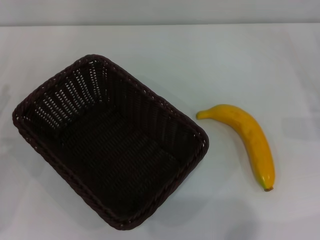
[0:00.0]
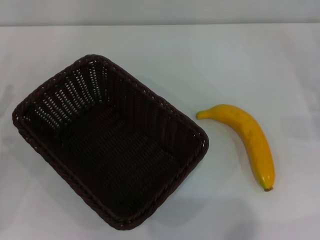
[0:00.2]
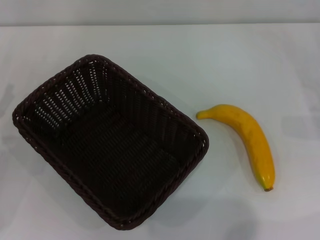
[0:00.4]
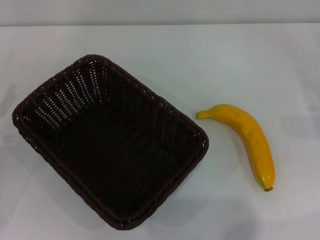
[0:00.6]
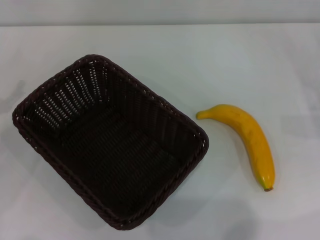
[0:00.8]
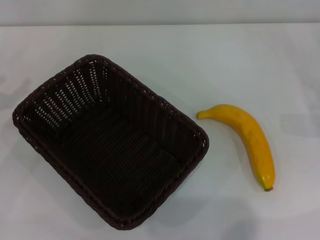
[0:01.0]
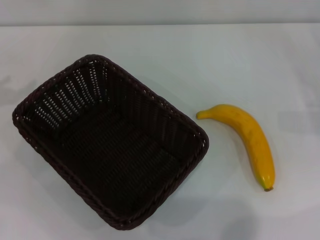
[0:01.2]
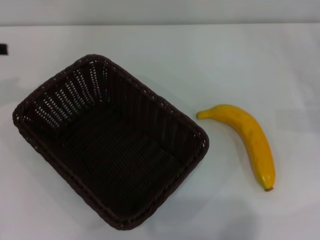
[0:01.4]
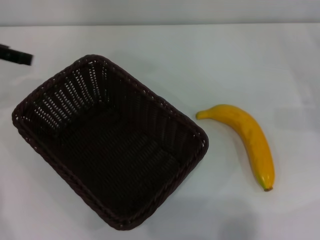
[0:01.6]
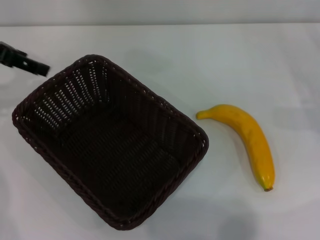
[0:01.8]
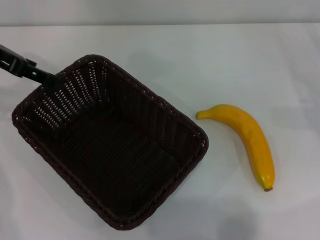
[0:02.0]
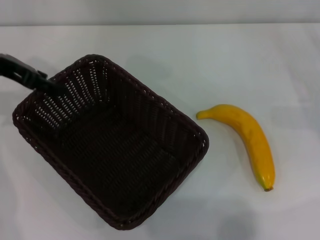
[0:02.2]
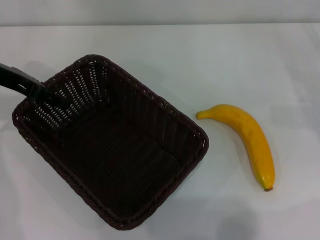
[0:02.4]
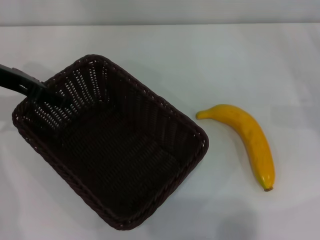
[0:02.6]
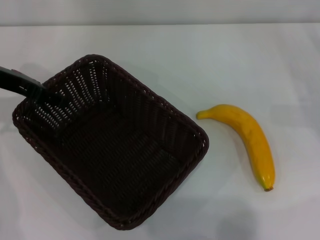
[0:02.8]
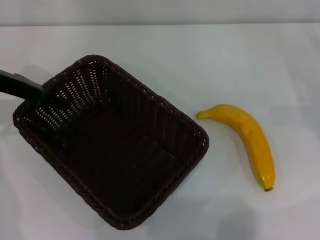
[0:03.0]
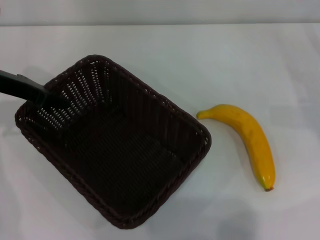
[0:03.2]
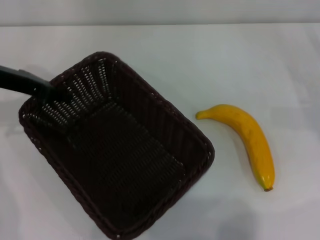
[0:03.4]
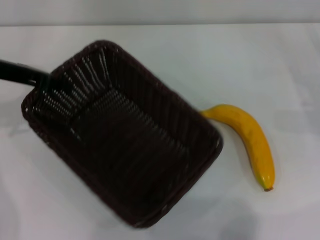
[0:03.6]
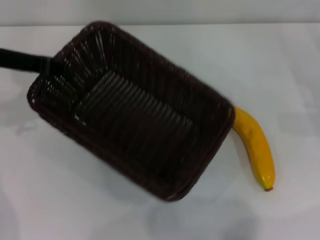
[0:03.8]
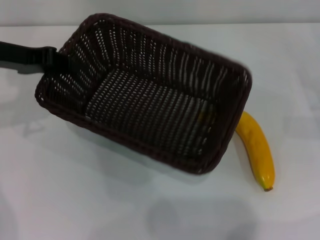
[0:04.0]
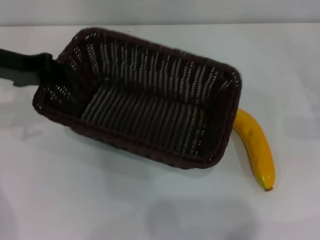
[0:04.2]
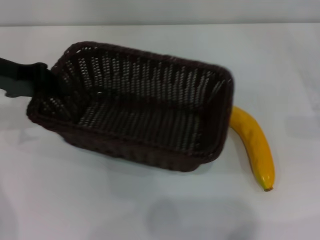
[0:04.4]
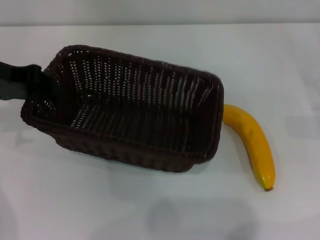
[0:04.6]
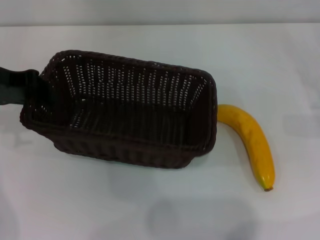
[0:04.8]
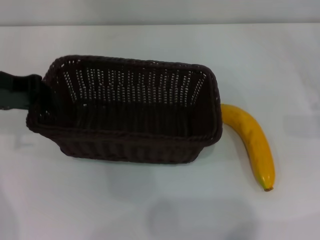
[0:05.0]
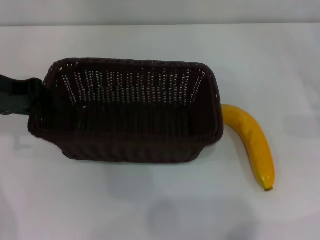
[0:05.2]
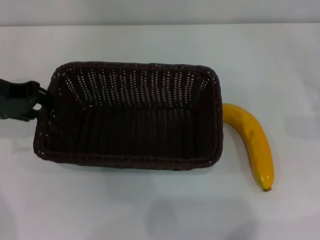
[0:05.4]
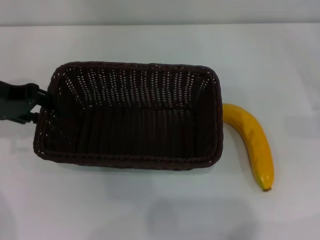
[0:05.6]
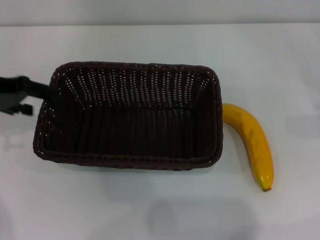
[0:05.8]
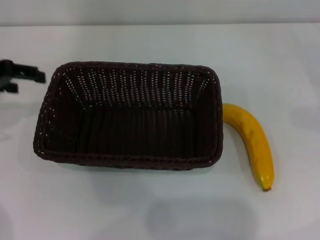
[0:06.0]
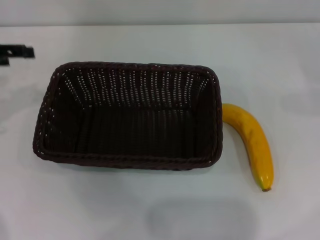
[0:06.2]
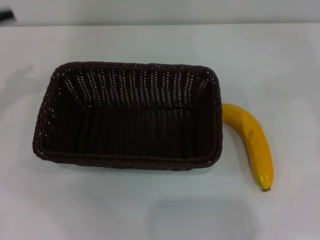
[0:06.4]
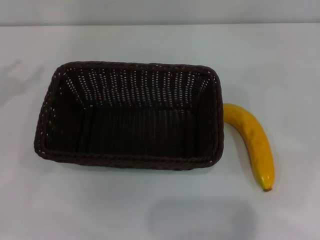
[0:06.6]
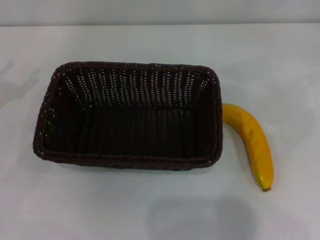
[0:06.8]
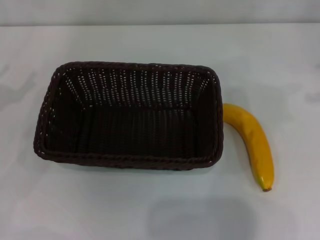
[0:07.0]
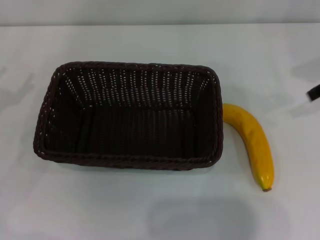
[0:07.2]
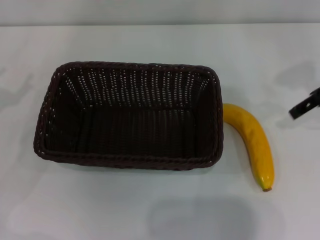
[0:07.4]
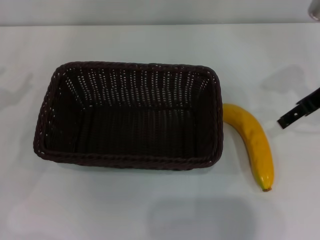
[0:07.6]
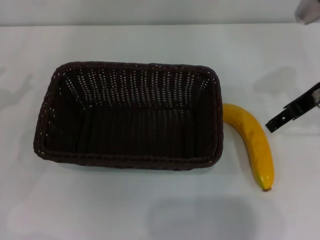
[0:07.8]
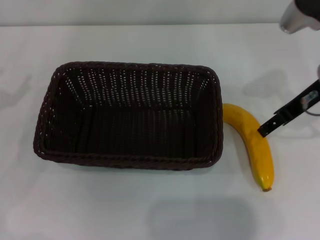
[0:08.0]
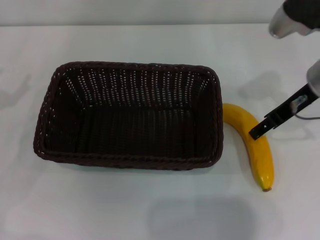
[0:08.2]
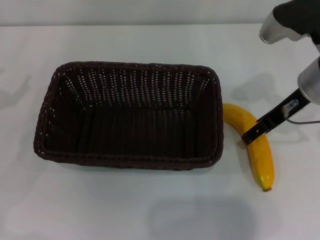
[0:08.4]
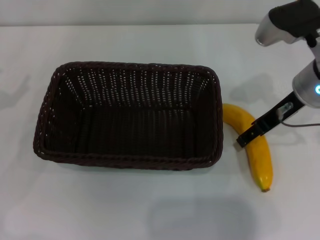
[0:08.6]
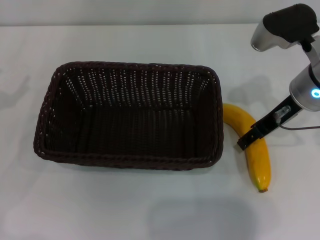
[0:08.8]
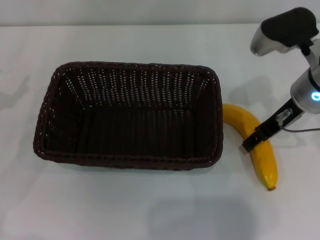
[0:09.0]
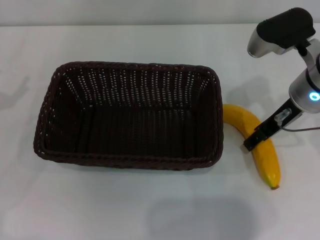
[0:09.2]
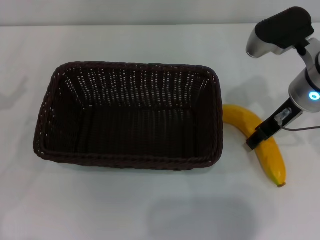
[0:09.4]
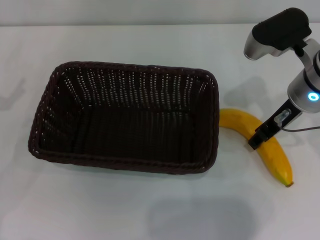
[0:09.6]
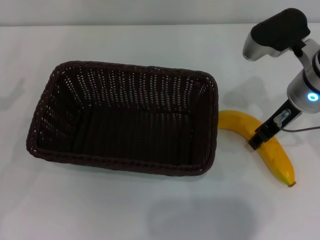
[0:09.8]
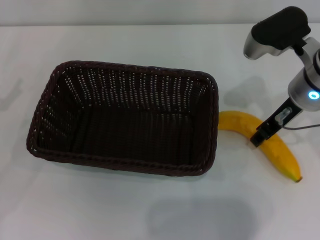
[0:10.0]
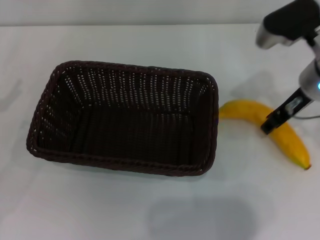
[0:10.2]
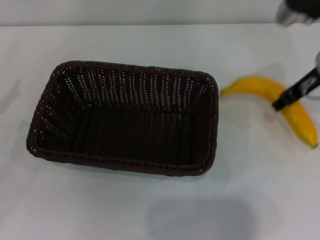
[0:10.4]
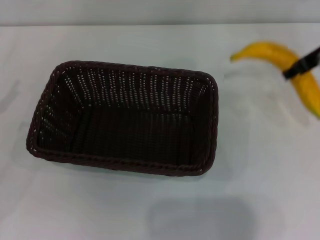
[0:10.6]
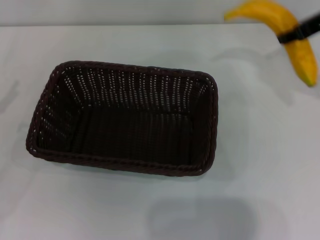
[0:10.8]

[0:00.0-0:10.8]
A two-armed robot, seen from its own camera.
Step, 0:00.0 to 0:03.6: Pick up the dark basket with the left gripper.
Step, 0:03.8 to 0:06.0: Place the dark basket in the center of view with the left gripper.
Step, 0:06.2 to 0:10.4: Pick up the banana with the right gripper.
0:00.0 to 0:01.6: The left gripper goes about 20 cm upward and forward.
0:01.6 to 0:03.0: The left gripper goes approximately 10 cm downward and to the right.
0:03.0 to 0:04.6: The left gripper changes place by roughly 5 cm, and closes.
0:04.6 to 0:06.2: The right gripper goes approximately 10 cm upward and to the right. Meanwhile the left gripper heads to the left, covering about 5 cm, and opens.
0:06.2 to 0:07.8: The left gripper travels downward and backward by approximately 10 cm. Meanwhile the right gripper moves to the left, roughly 20 cm.
0:07.8 to 0:09.2: The right gripper travels to the left by roughly 5 cm.
0:09.2 to 0:10.8: The right gripper shifts roughly 10 cm upward and to the right, and closes its fingers.

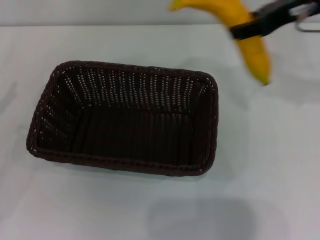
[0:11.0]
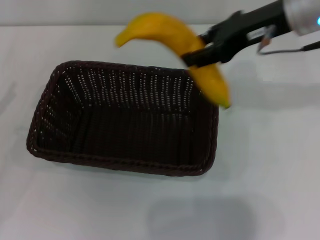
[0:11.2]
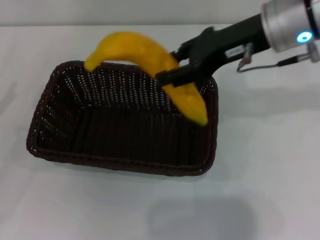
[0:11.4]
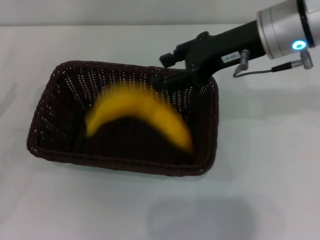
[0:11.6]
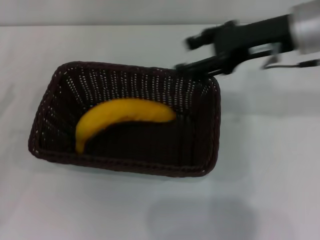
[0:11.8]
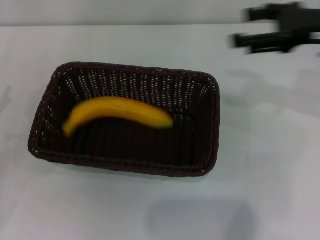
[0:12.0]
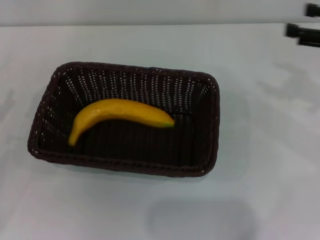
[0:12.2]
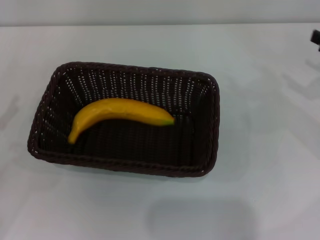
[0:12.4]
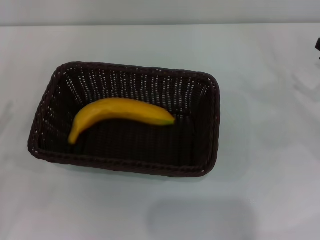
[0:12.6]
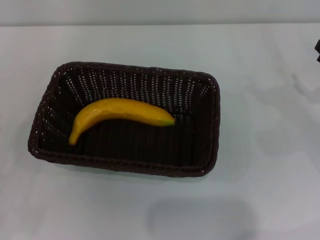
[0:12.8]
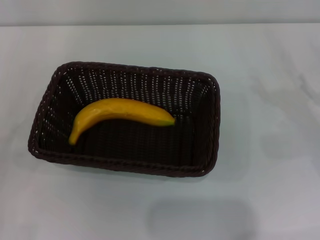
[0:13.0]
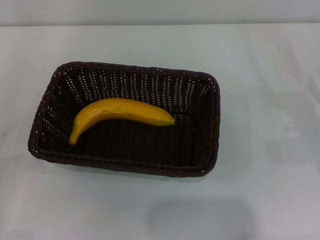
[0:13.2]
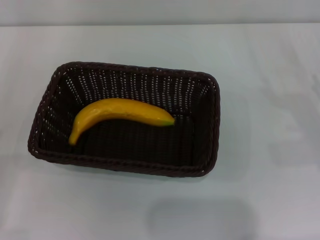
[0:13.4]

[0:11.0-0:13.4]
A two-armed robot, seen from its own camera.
Step, 0:11.0 to 0:11.8: Place the banana into the dark basket with the right gripper.
0:11.0 to 0:12.2: The right gripper shifts some 15 cm to the right and downward, and opens.
0:12.2 to 0:13.4: The right gripper travels downward and backward by roughly 15 cm.

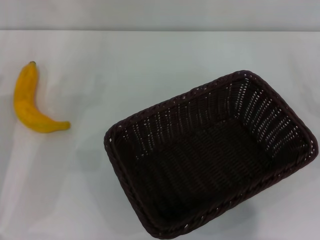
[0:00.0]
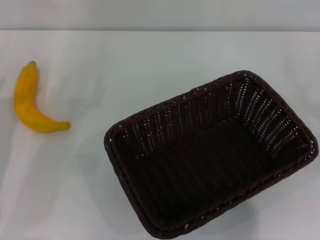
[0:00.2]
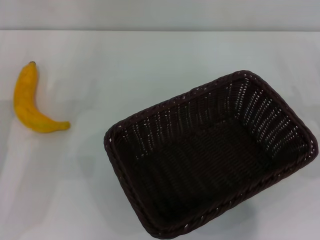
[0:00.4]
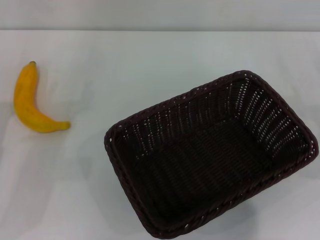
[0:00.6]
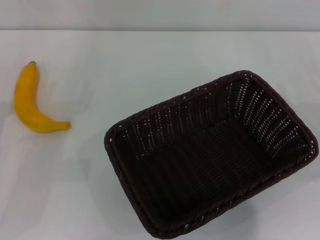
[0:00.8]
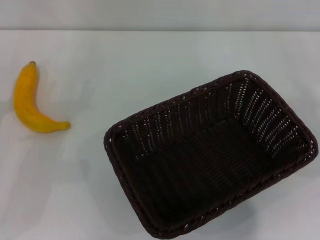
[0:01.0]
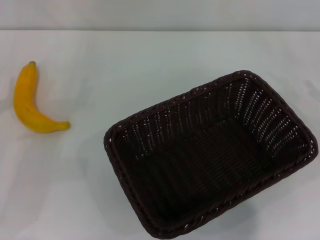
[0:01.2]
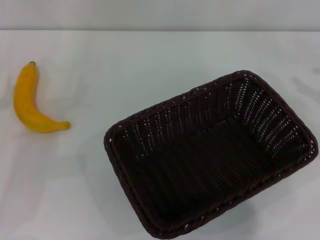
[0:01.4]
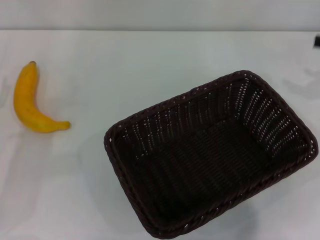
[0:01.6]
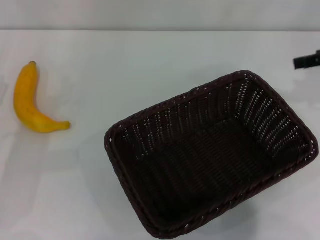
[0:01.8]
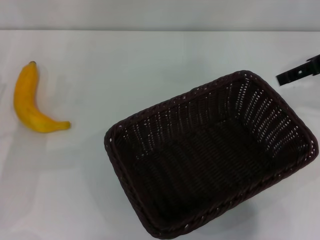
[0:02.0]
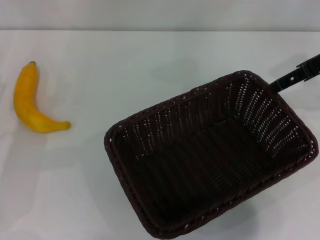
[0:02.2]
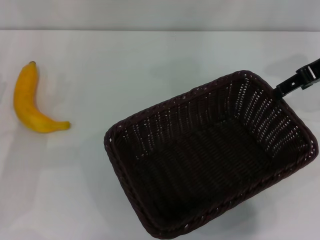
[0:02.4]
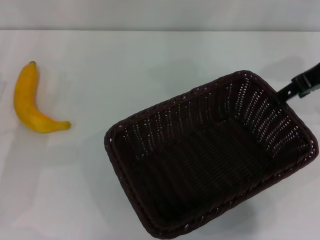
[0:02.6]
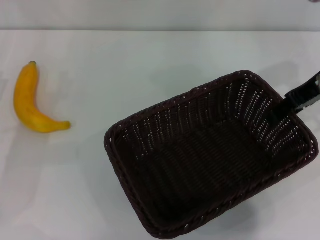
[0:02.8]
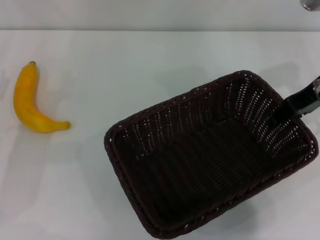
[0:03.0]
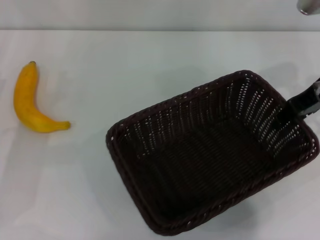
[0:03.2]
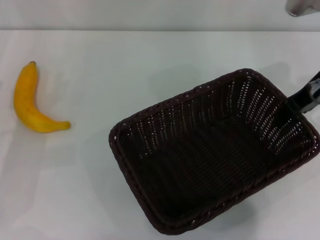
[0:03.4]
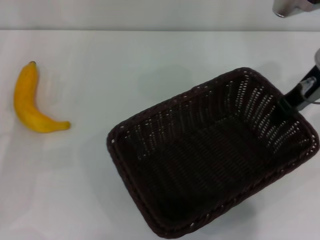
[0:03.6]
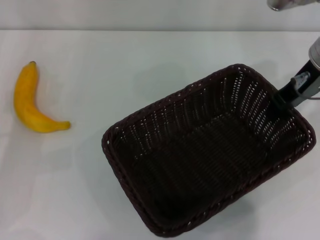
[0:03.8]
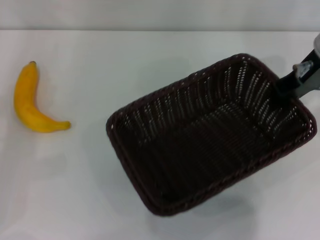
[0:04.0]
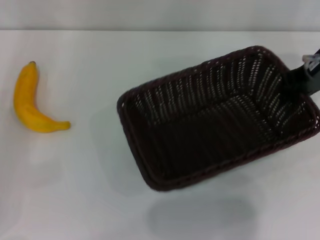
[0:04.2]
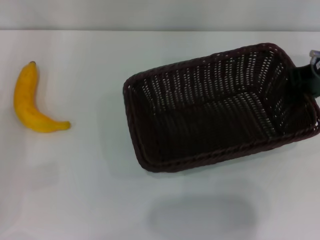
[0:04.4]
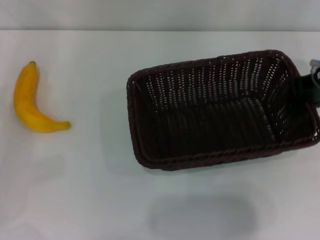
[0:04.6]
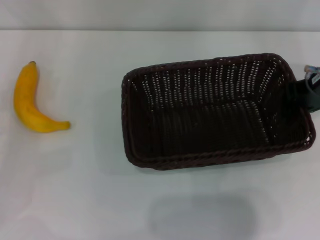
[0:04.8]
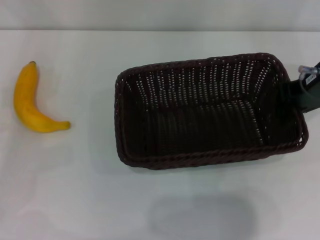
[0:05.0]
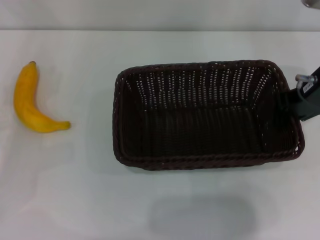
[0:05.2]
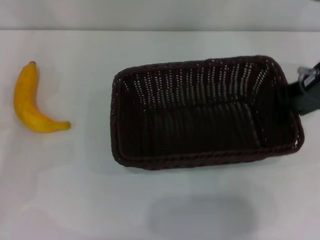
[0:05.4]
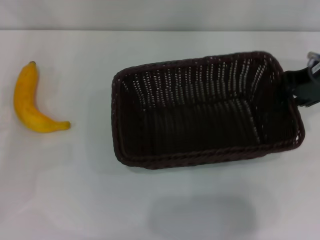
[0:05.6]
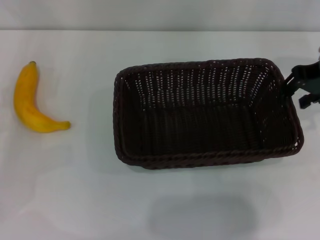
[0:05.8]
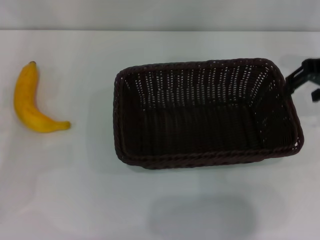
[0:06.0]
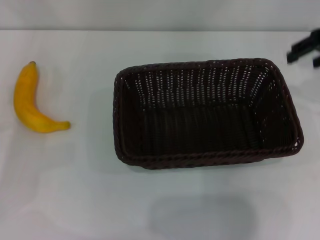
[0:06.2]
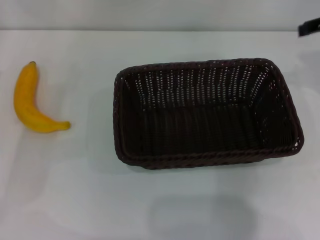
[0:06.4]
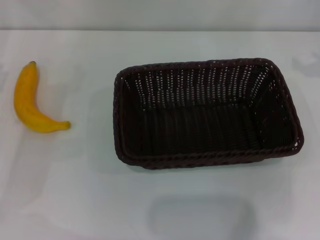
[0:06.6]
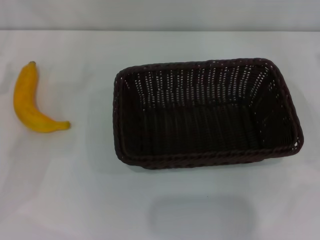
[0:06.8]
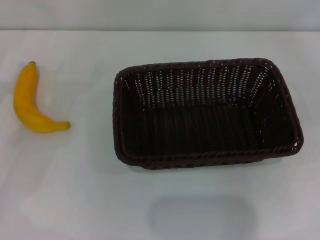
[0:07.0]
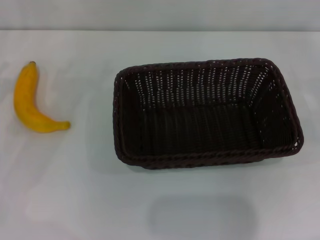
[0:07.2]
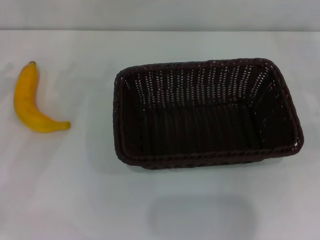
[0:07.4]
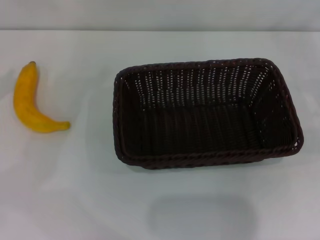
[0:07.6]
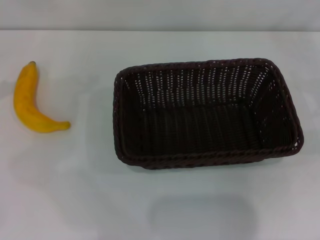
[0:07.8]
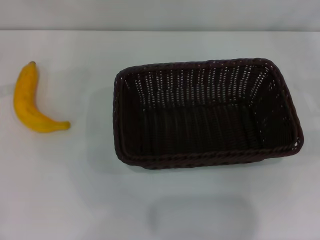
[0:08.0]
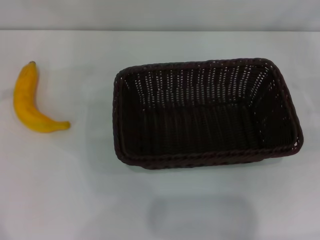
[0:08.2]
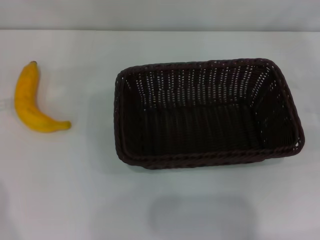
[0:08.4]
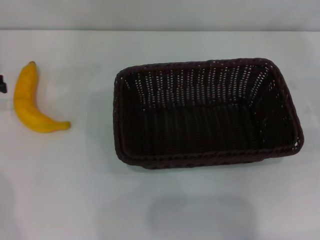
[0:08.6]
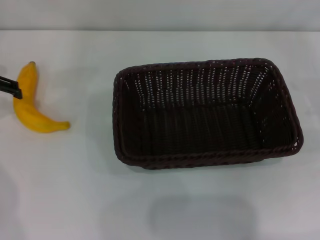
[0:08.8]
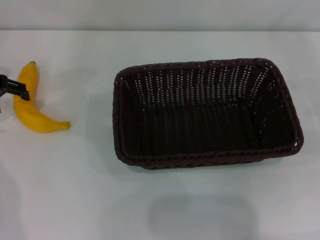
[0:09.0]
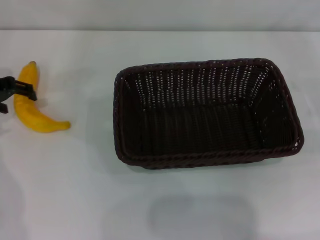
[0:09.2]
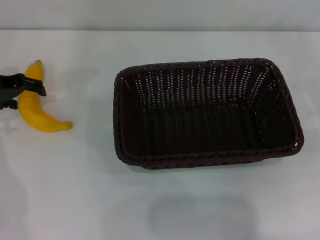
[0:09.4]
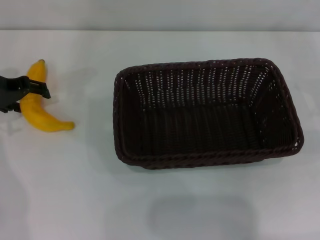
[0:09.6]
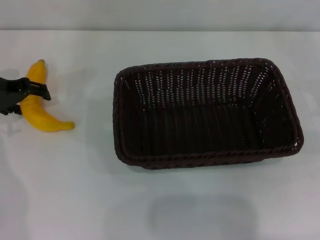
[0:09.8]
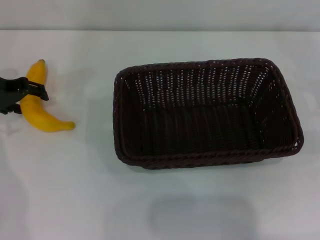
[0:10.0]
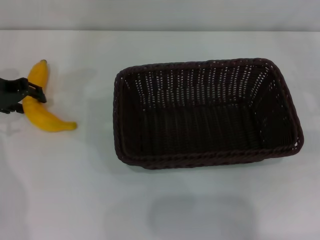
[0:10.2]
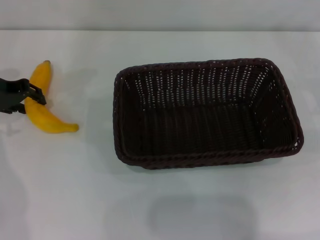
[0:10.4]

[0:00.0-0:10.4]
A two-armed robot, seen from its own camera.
Step, 0:00.0 to 0:04.0: Pick up the dark basket with the right gripper.
Step, 0:04.2 to 0:05.6: Place the dark basket in the center of view with the right gripper.
0:01.4 to 0:03.0: The right gripper goes about 15 cm to the left.
0:03.0 to 0:04.4: The right gripper closes.
0:04.4 to 0:06.0: The right gripper opens.
0:06.0 to 0:07.4: The right gripper goes approximately 25 cm to the right, downward and backward.
0:07.4 to 0:09.0: The left gripper is displaced forward and to the right by roughly 10 cm.
0:09.0 to 0:10.4: The left gripper closes up.
